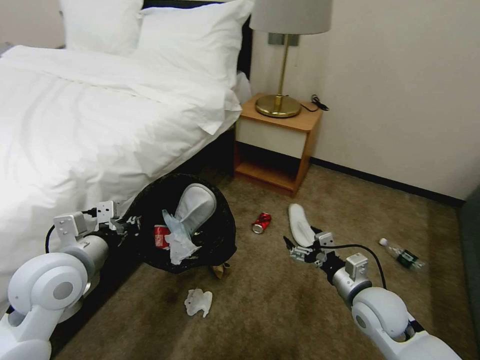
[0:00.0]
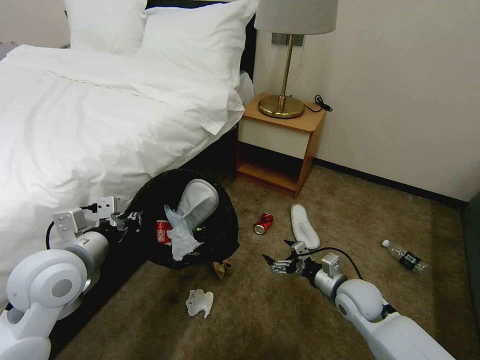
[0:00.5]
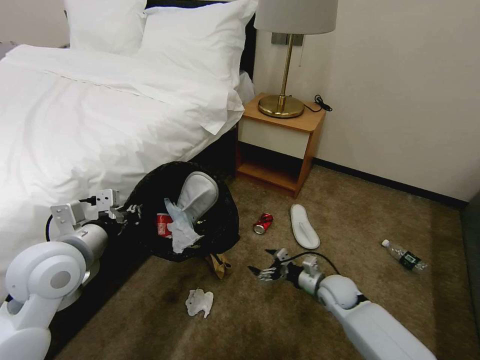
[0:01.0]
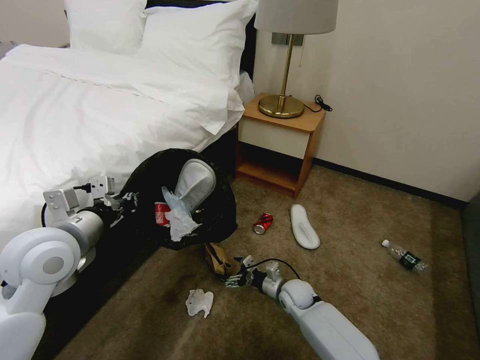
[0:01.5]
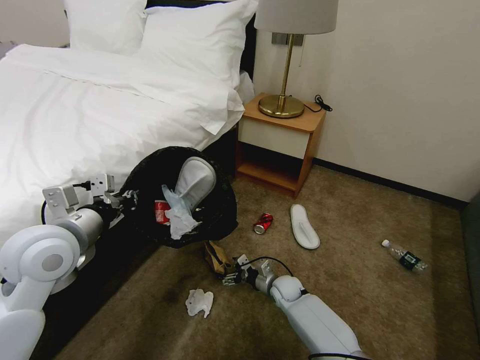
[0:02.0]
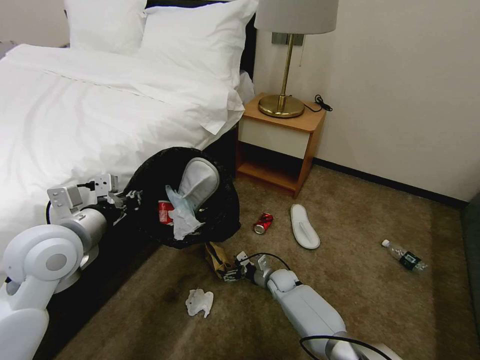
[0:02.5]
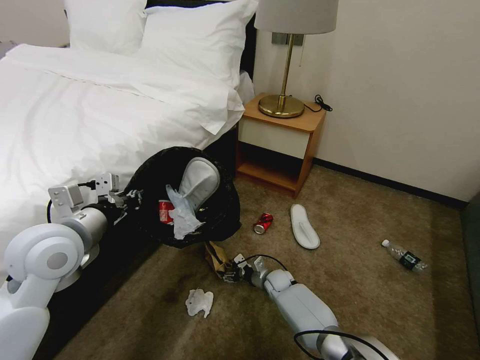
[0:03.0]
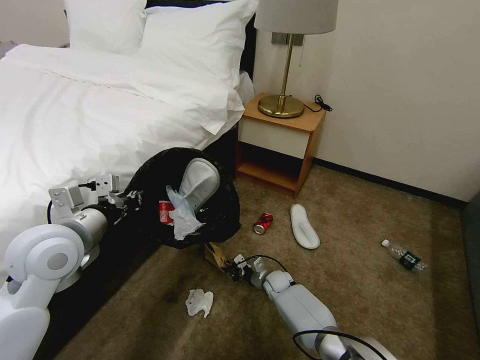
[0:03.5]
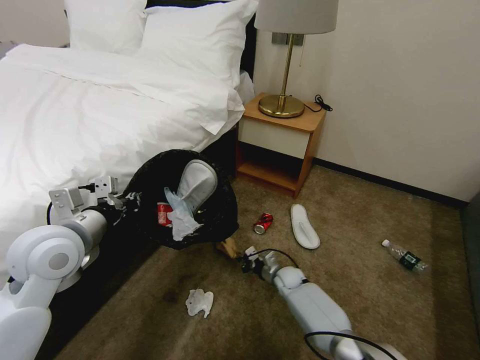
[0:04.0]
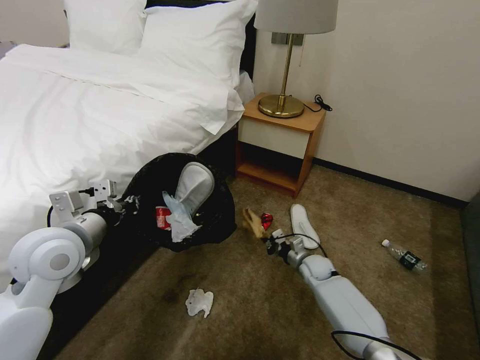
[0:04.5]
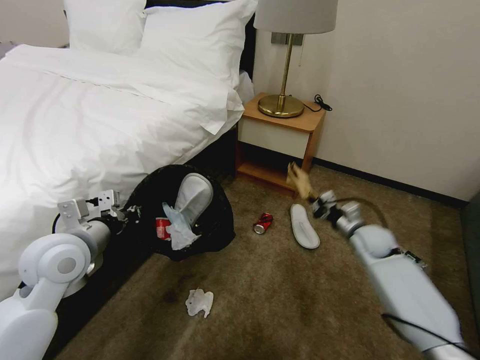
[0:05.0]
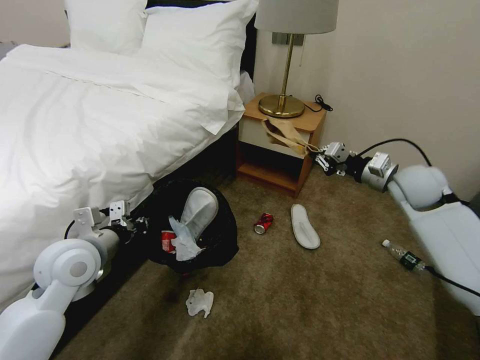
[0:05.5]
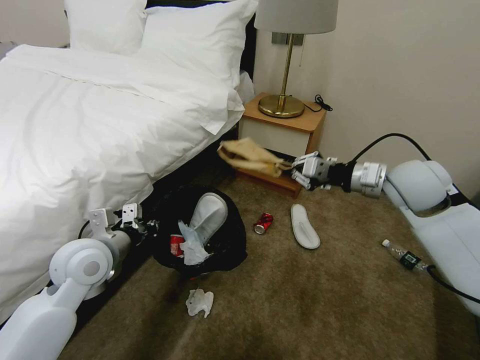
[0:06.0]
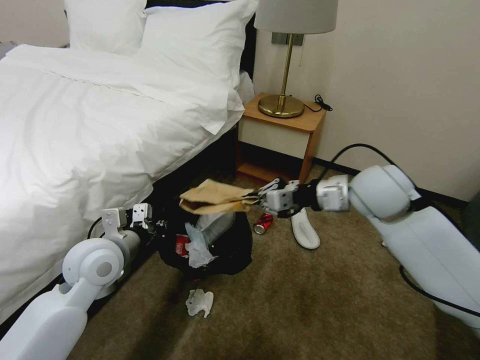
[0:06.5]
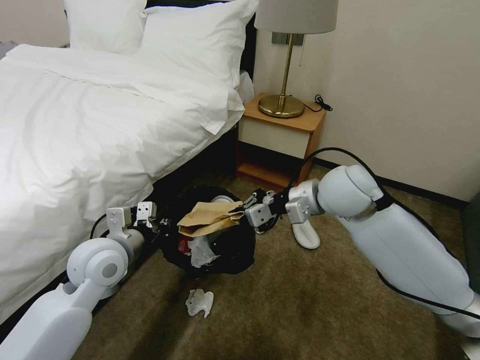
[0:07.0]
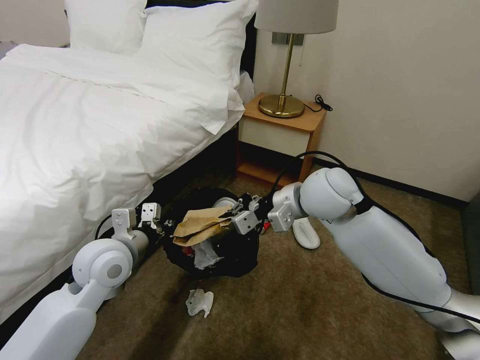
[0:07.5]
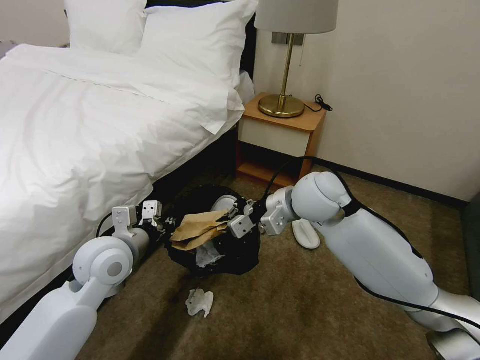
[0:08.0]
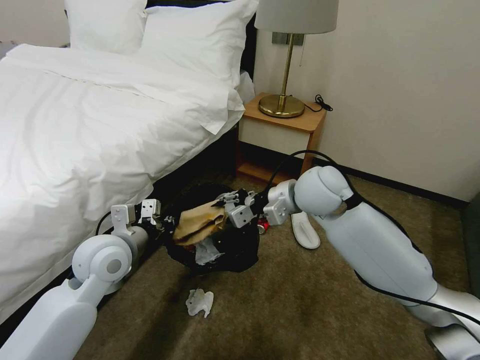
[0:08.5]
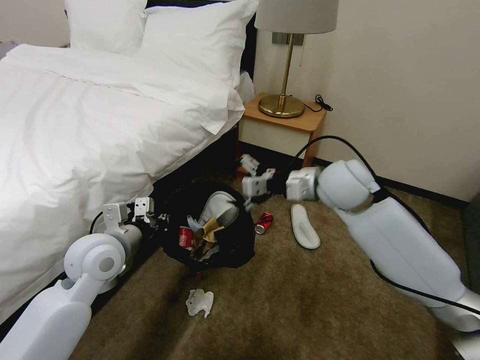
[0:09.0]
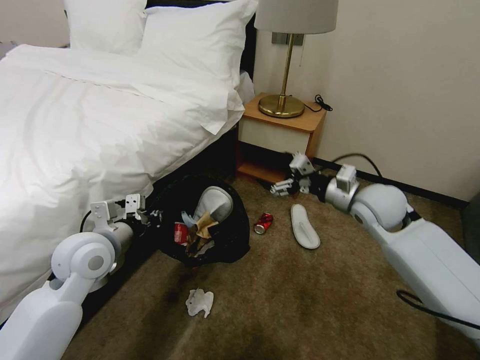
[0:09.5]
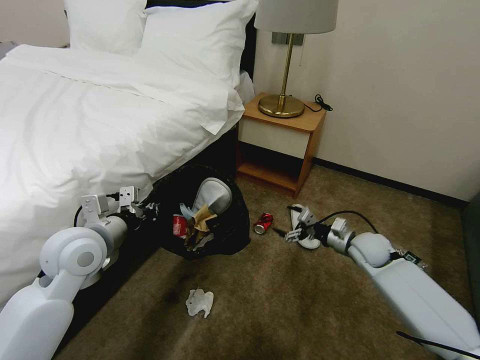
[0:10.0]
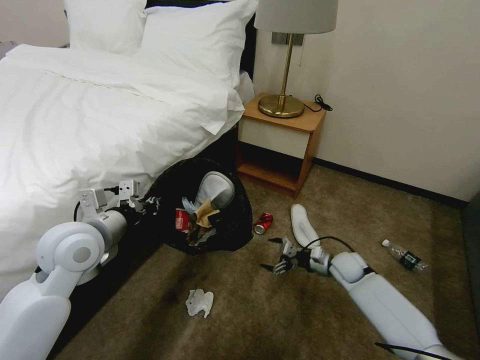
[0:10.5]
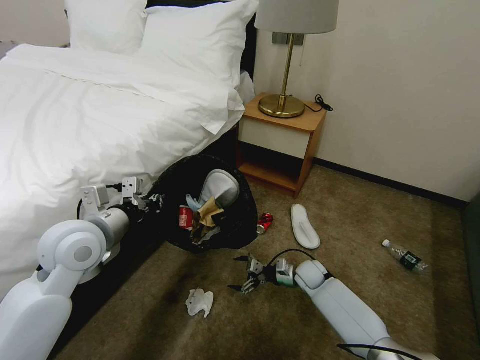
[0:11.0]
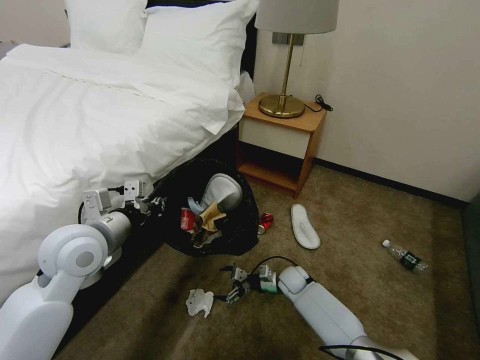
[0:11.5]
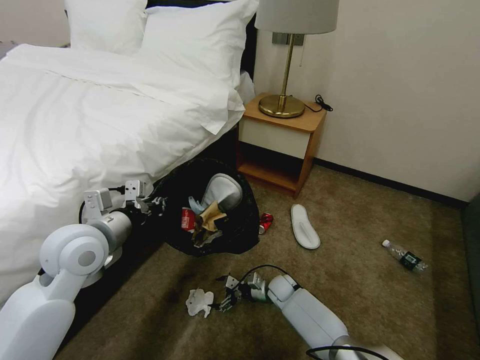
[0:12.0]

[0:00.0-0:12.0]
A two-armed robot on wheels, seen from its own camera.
Task of the whole recording: Pick up the trash bin, then pick up the garbage on the floor and place it into the trash bin.
0:00.0 to 0:02.0: The right gripper moves downward, to the left and forward, about 30 cm.
0:02.0 to 0:04.0: The right gripper closes its fingers.
0:04.0 to 0:06.0: The right gripper heads upward, covering about 40 cm; the left gripper moves downward, approximately 5 cm.
0:06.0 to 0:08.0: The right gripper travels to the left by about 15 cm.
0:08.0 to 0:10.0: The right gripper is displaced downward and to the right by roughly 30 cm, and opens up.
0:10.0 to 0:12.0: The right gripper travels downward and to the left by some 30 cm.

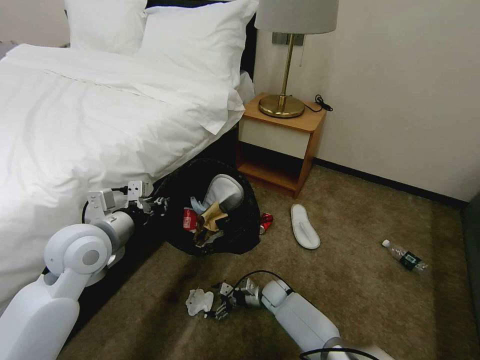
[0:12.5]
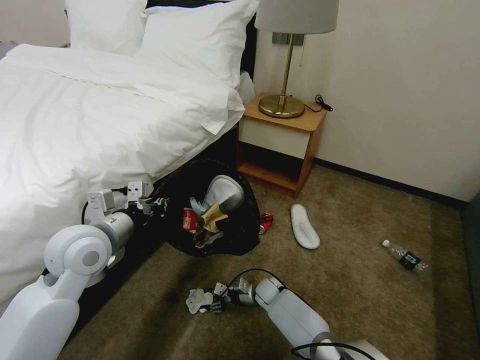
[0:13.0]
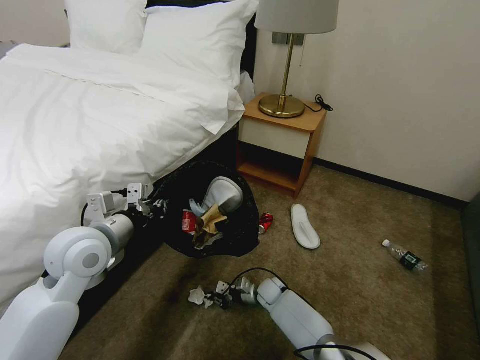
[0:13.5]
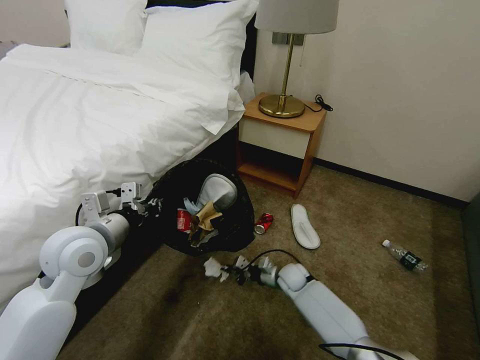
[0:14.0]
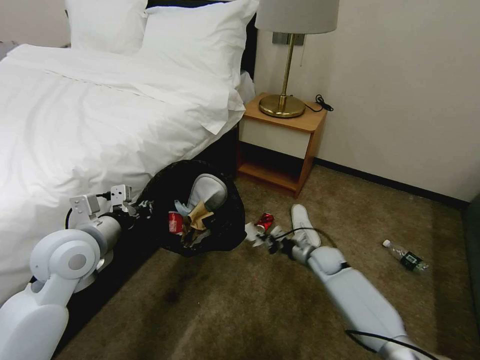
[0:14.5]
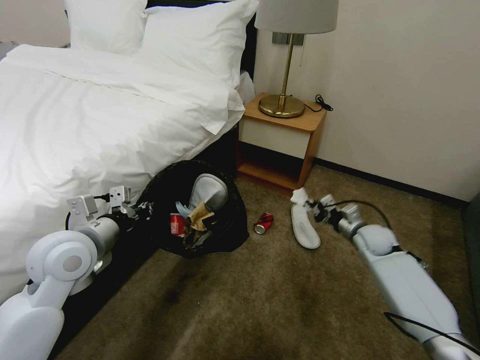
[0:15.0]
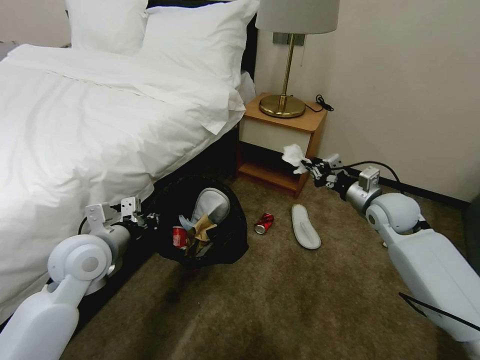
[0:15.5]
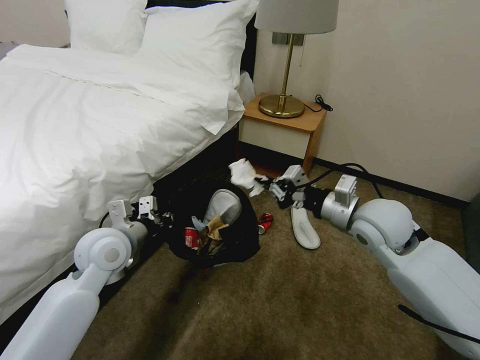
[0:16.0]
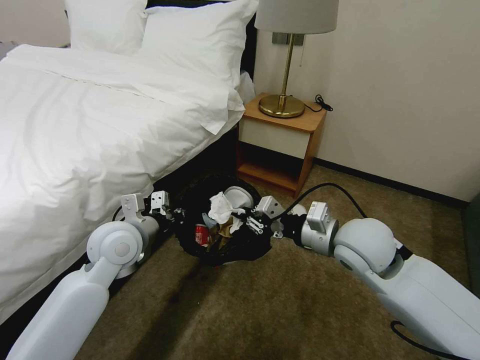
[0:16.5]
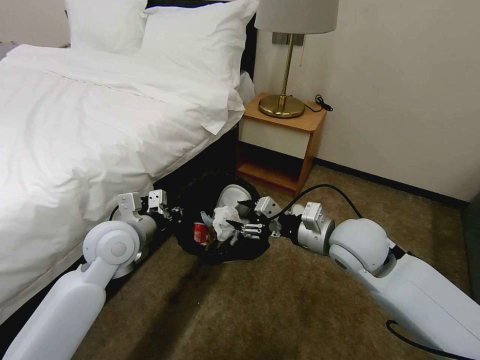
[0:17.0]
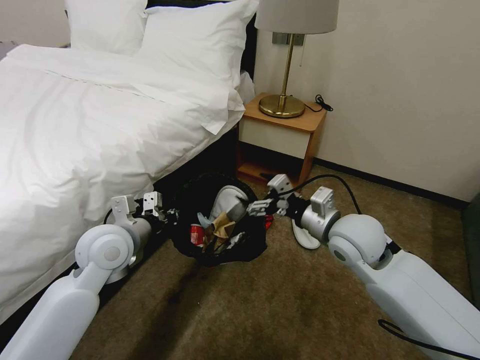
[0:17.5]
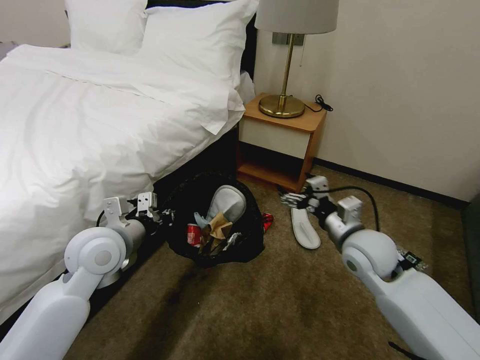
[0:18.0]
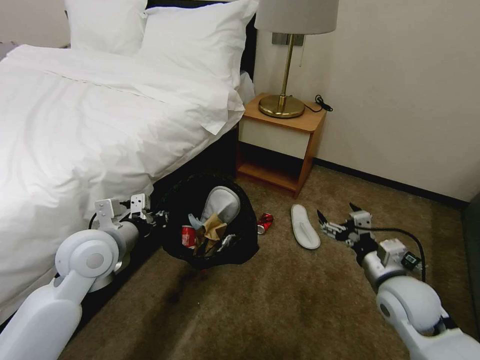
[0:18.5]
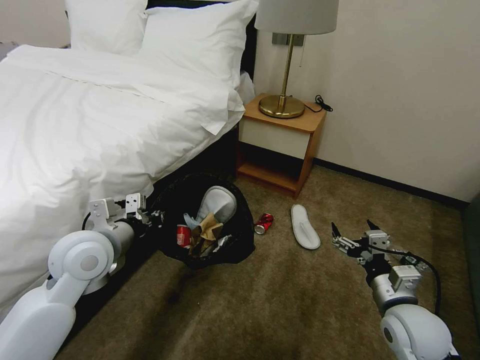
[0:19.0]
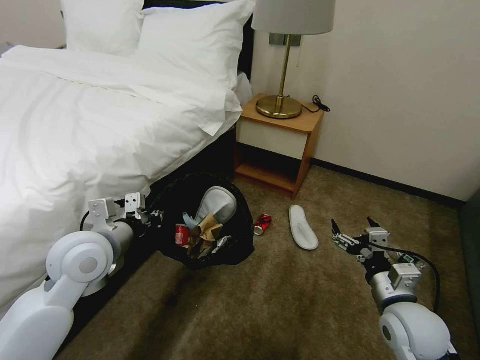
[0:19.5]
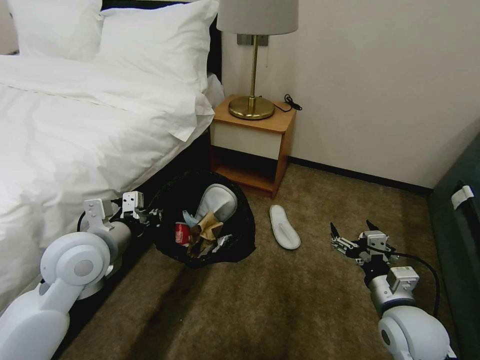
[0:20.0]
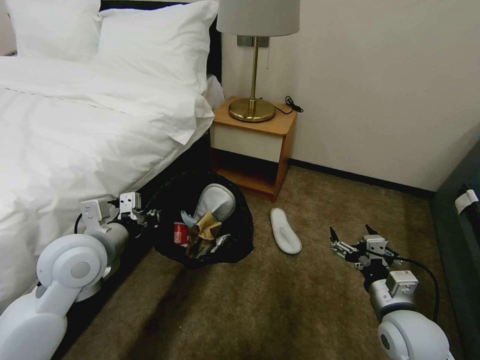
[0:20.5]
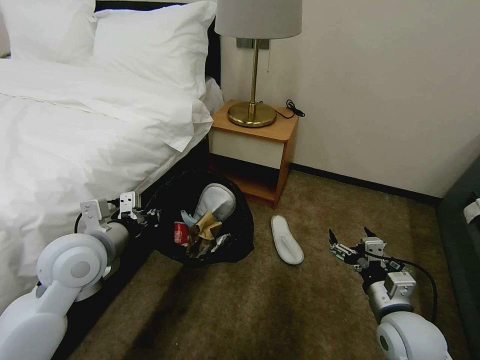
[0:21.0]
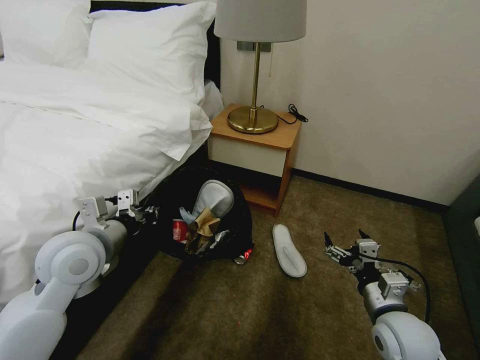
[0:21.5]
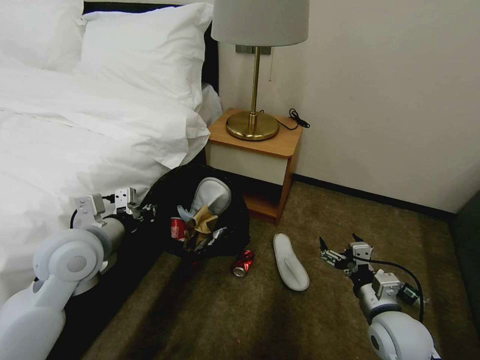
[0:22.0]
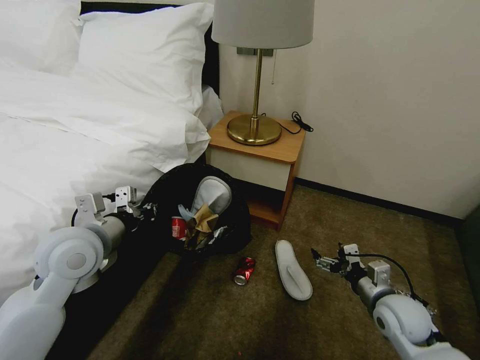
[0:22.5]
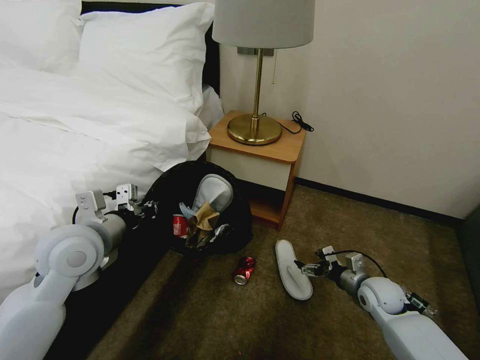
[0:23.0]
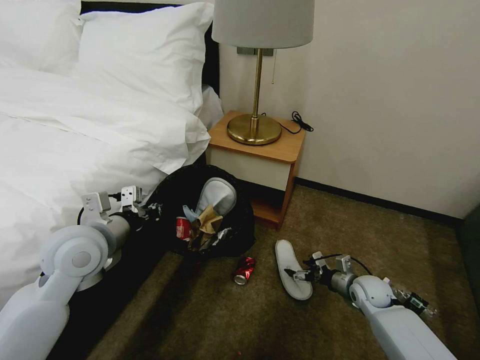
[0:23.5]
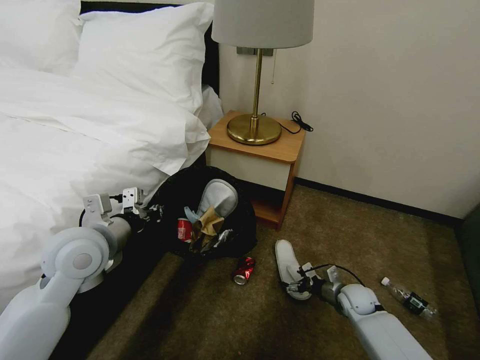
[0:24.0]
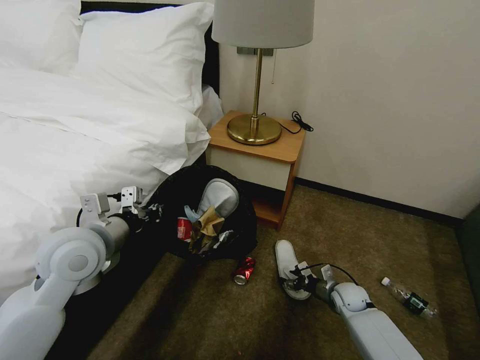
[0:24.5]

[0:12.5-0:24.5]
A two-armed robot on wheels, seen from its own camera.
Task of the whole recording: Pick up the trash bin, then pick up the garbage on the floor and place it into the trash bin.
0:12.5 to 0:14.5: The right gripper is displaced to the right and upward by approximately 20 cm, and closes its fingers.
0:14.5 to 0:16.5: The left gripper moves to the right, some 5 cm, while the right gripper goes some 30 cm upward and backward.
0:16.5 to 0:18.5: The right gripper shifts some 15 cm downward, to the right and backward, and opens.
0:18.5 to 0:20.5: The right gripper travels backward by some 5 cm.
0:20.5 to 0:22.5: The right gripper shifts by some 10 cm.
0:22.5 to 0:24.5: The right gripper is displaced downward and forward by some 20 cm, and closes its fingers.

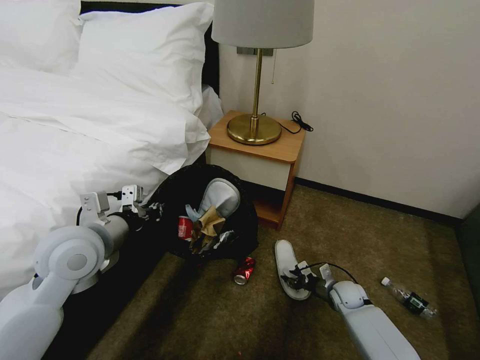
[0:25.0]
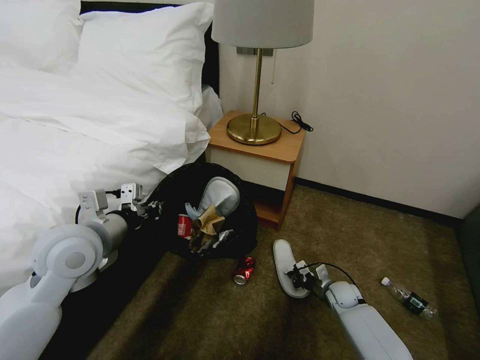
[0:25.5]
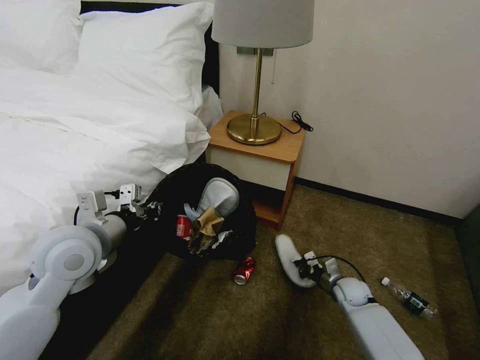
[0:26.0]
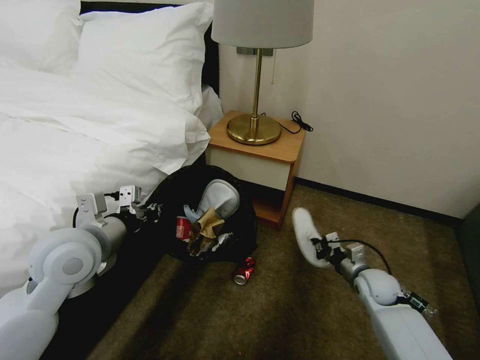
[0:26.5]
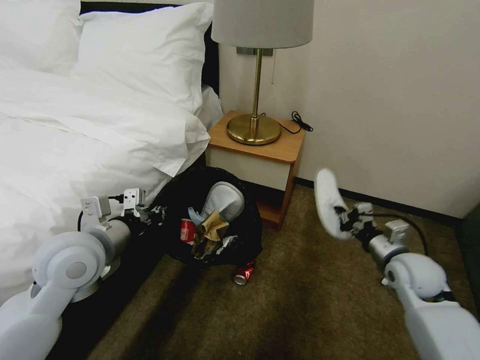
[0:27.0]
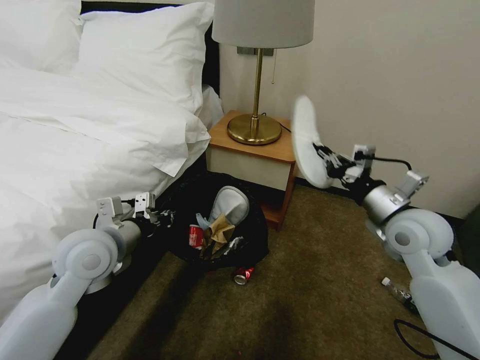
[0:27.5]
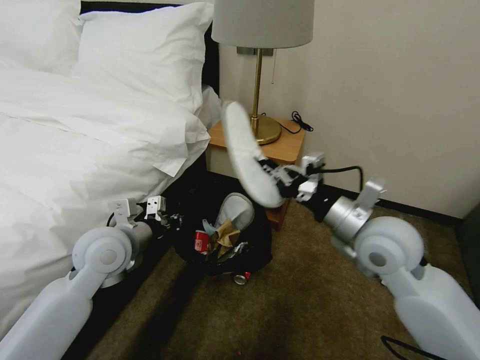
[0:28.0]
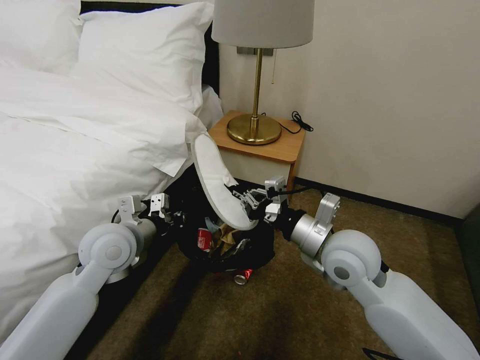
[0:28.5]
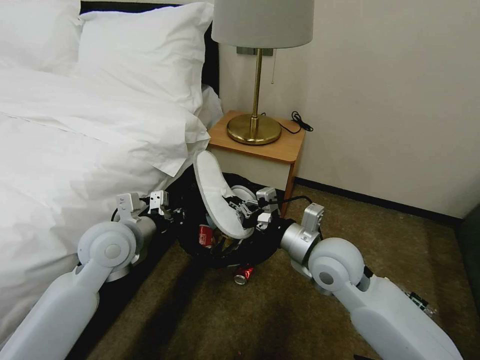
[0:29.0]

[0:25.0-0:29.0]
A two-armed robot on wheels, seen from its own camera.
Task of the whole recording: Pick up the trash bin, then pick up the garbage on the floor and place it into the trash bin.
0:25.0 to 0:27.0: The right gripper shifts about 25 cm upward, and closes up.
0:27.0 to 0:29.0: The left gripper shifts by about 5 cm. The right gripper heads to the left, covering roughly 20 cm.
